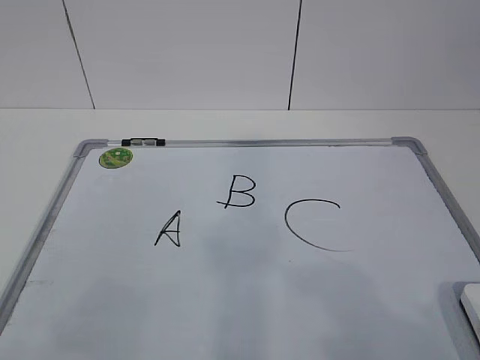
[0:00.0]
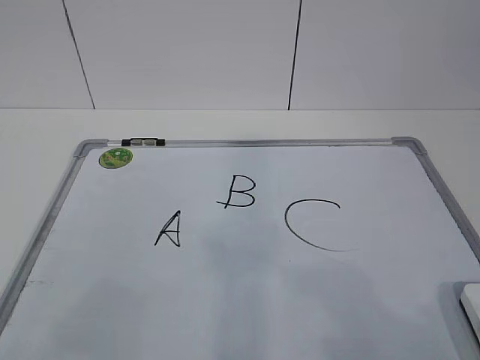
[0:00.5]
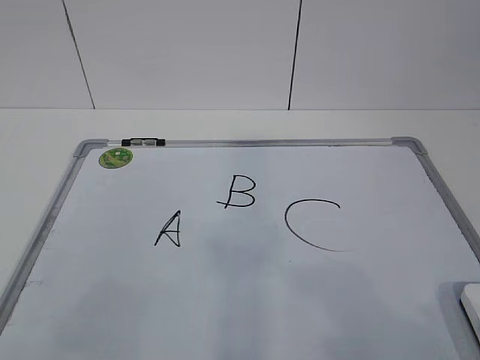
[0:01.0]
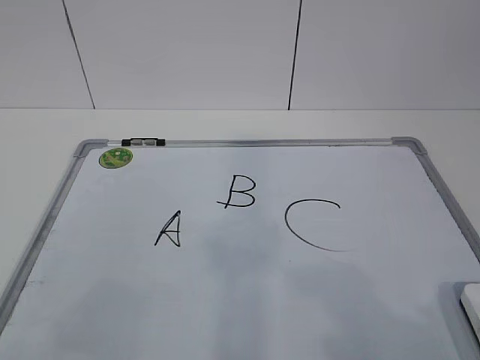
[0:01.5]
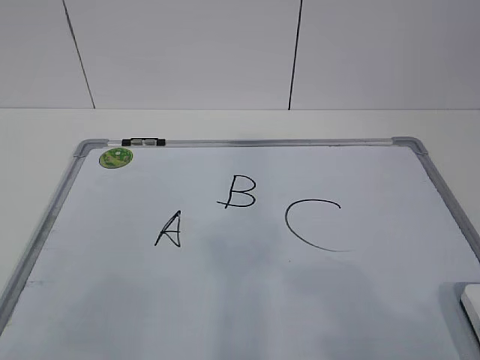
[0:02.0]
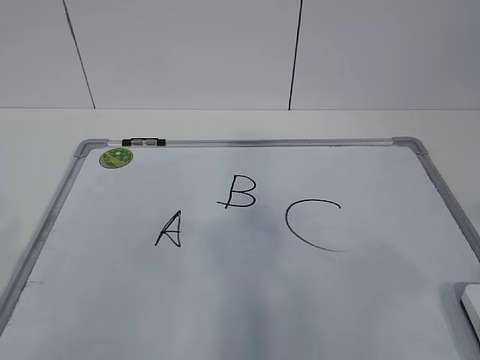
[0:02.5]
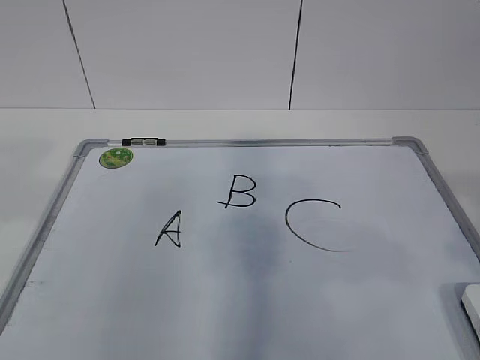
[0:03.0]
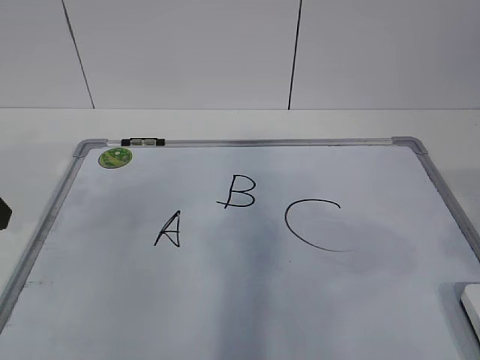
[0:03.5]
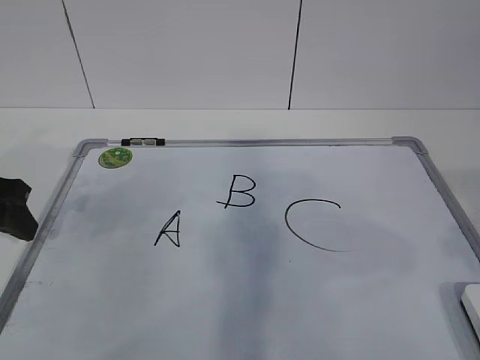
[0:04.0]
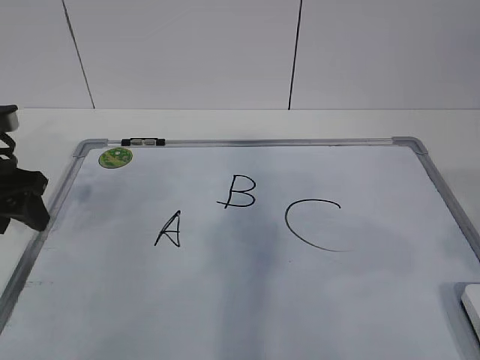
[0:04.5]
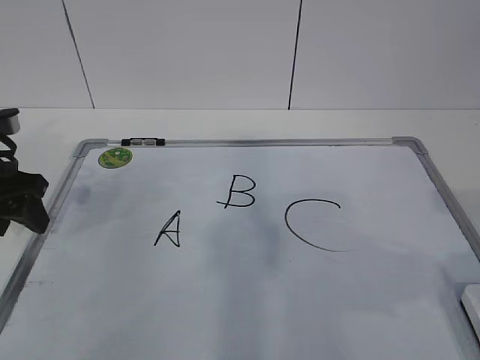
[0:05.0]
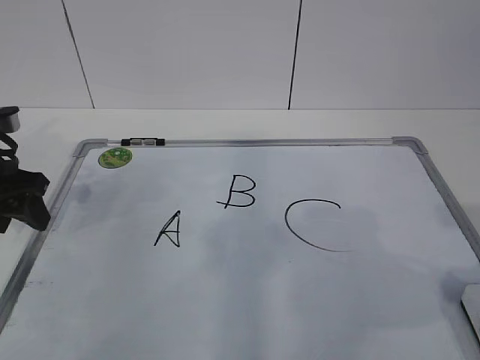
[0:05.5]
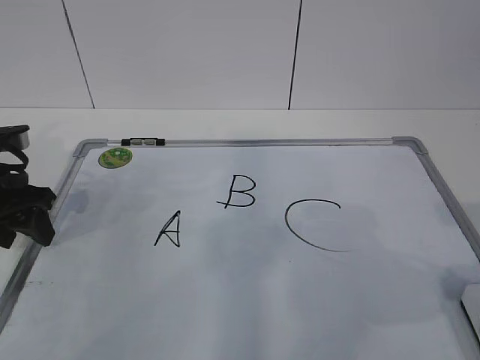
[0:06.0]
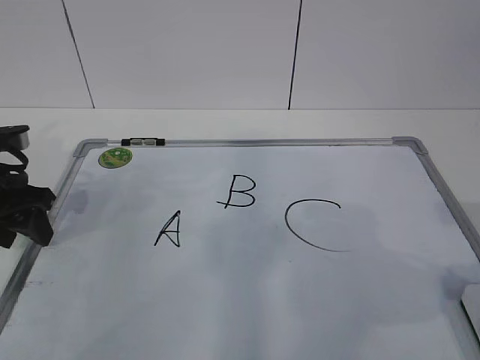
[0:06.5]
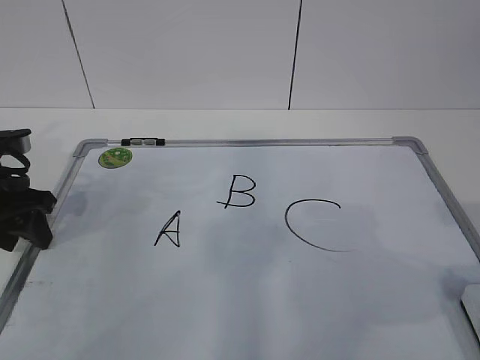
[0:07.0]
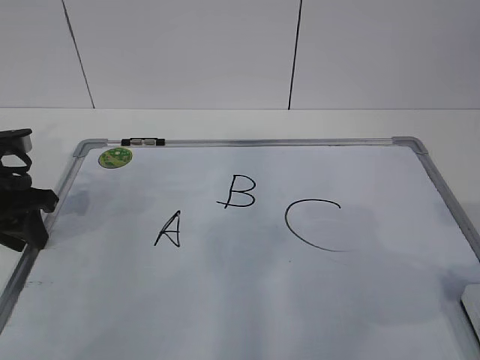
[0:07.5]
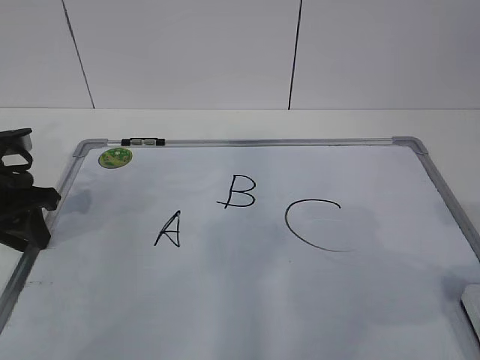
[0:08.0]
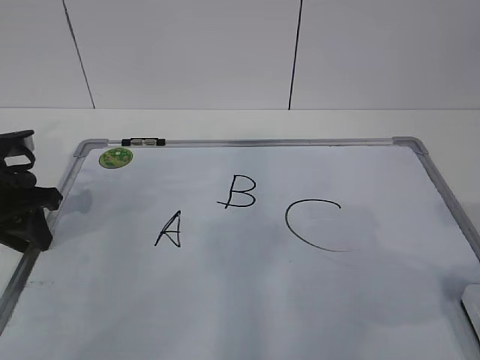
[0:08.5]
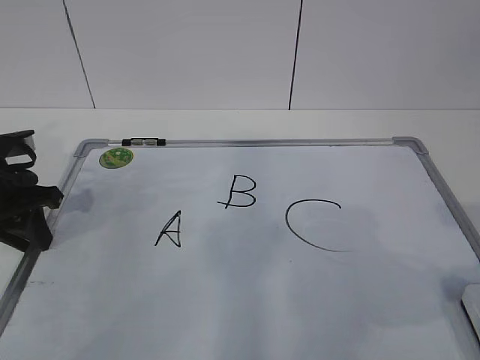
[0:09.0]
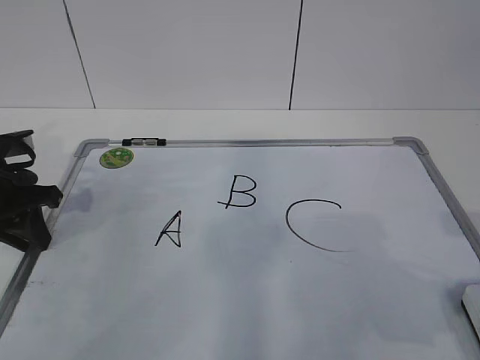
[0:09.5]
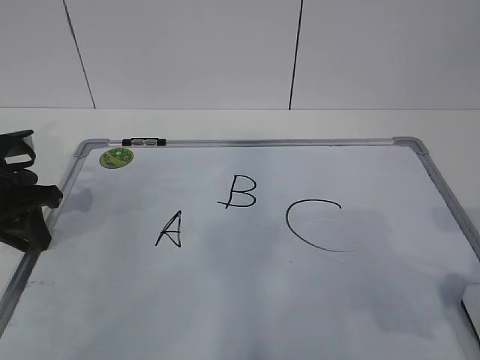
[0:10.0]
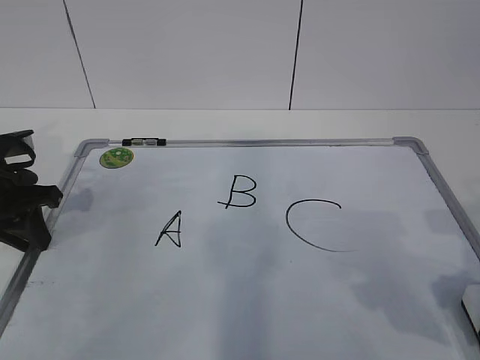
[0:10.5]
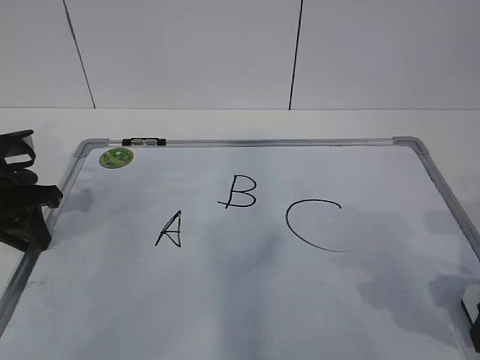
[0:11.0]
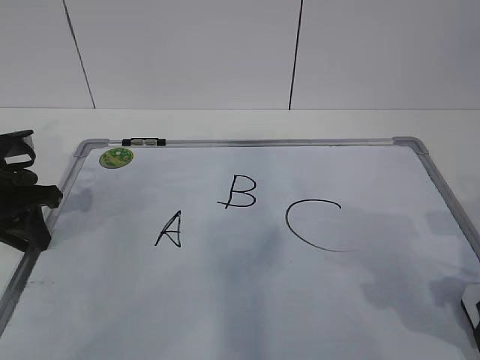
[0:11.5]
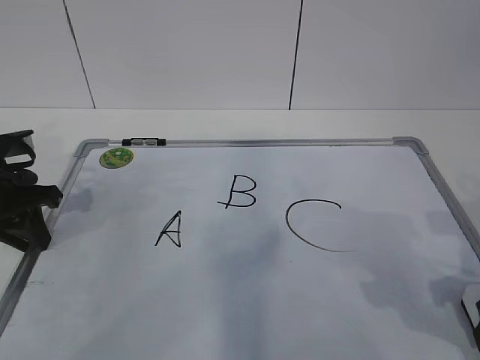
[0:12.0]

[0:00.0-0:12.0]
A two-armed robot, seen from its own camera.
Task of the whole recording: pick up the eraser on the blackboard and erase the letter "B".
Step, 0:00.0 to 0:06.5: Hold the drawing board steady with your left hand.
0:02.0 to 0:04.0: The right gripper is displaced forward and upward by roughly 10 cm; the left gripper goes some 30 cm forward.
0:04.0 to 0:06.0: The left gripper shifts by approximately 5 cm.
0:06.0 to 0:08.0: The left gripper closes its fingers.
0:08.0 to 0:10.0: The grippers move only a little.

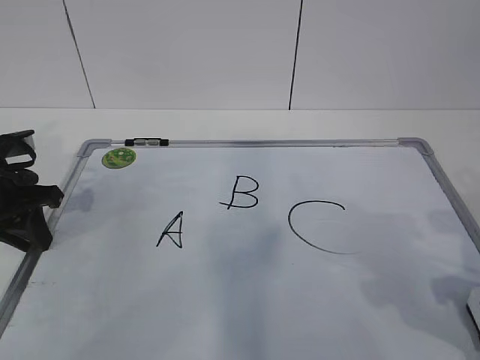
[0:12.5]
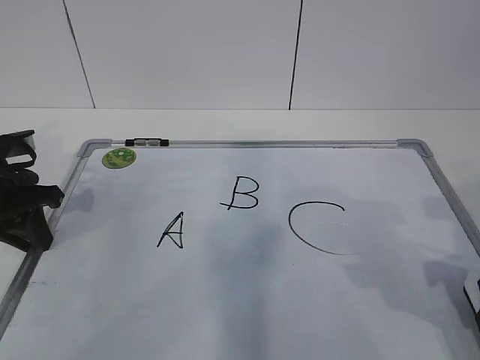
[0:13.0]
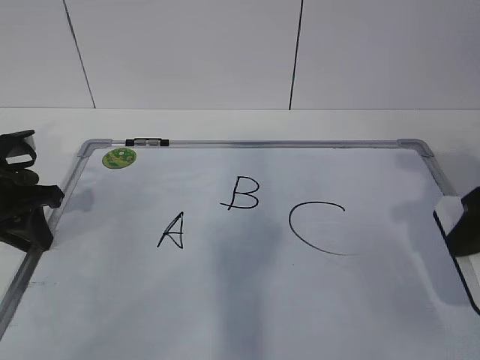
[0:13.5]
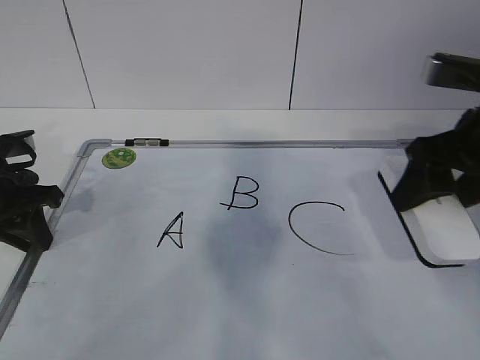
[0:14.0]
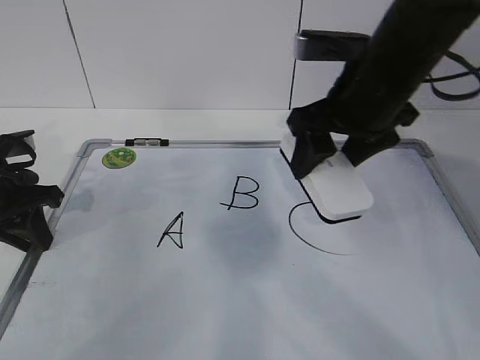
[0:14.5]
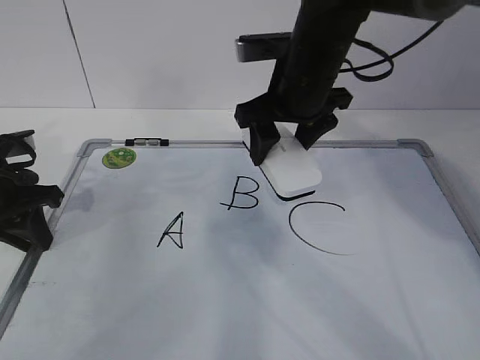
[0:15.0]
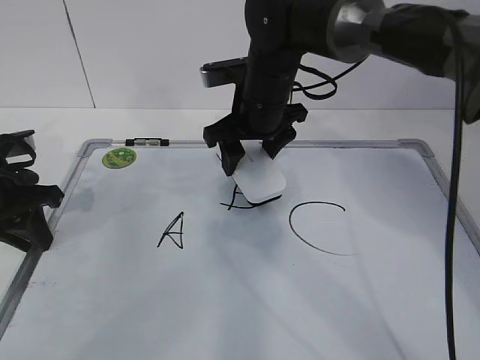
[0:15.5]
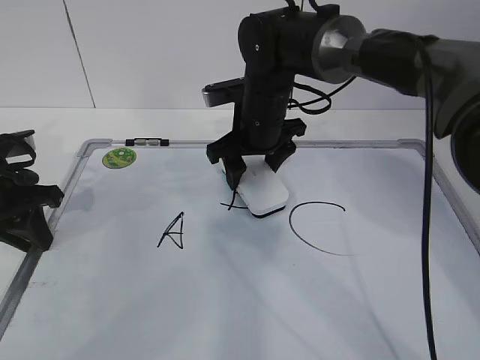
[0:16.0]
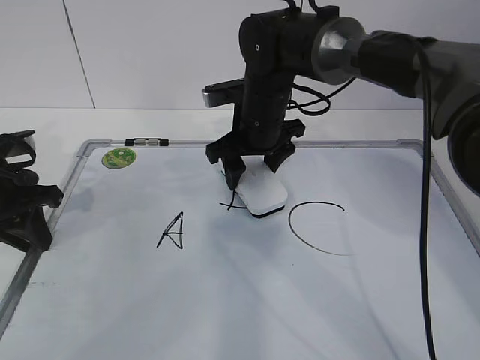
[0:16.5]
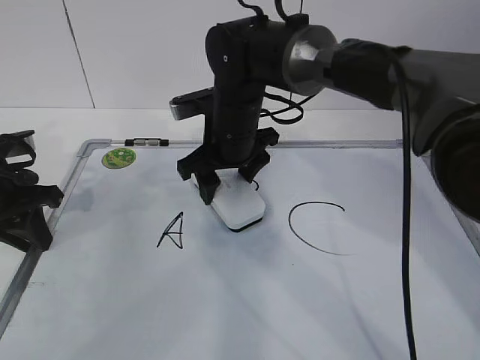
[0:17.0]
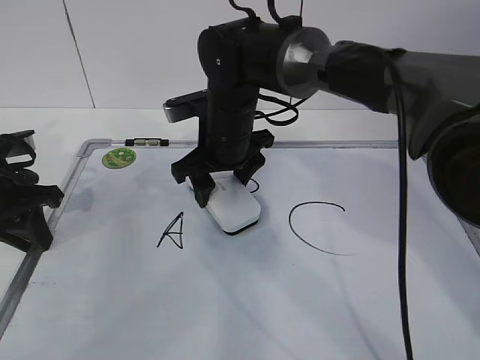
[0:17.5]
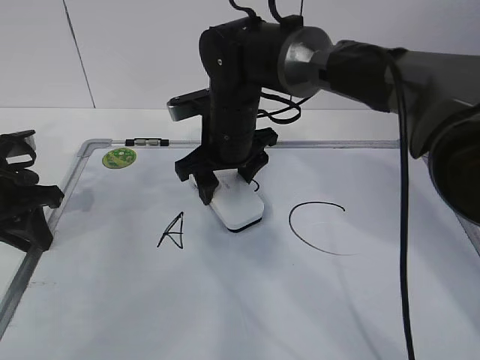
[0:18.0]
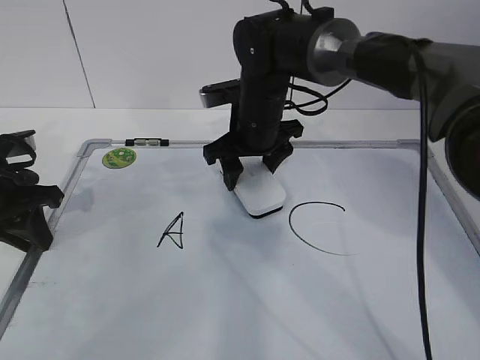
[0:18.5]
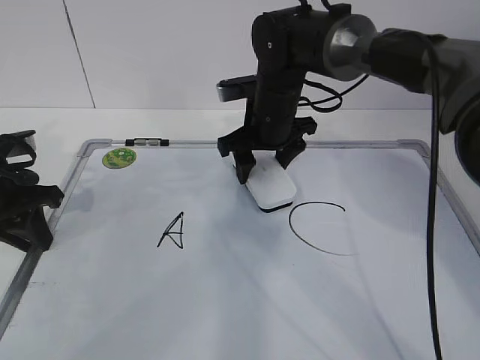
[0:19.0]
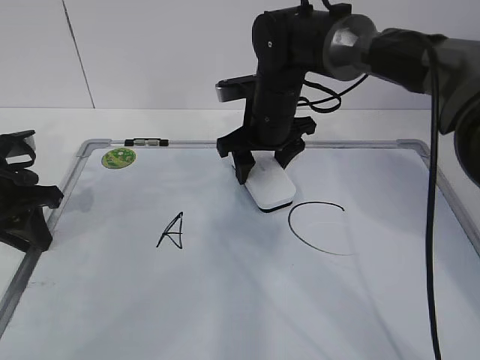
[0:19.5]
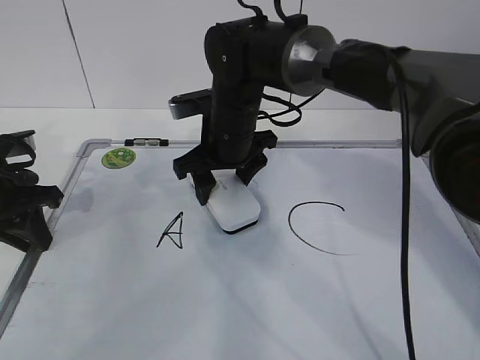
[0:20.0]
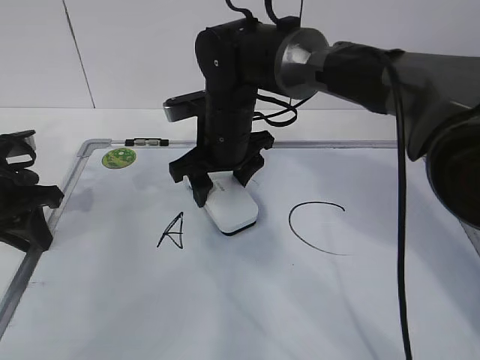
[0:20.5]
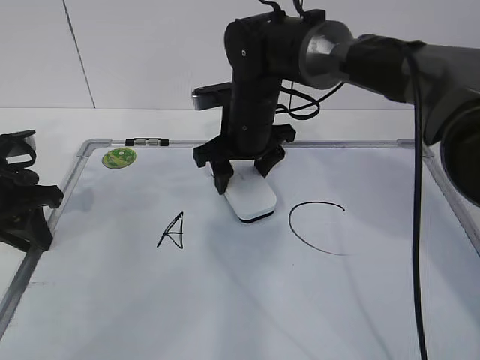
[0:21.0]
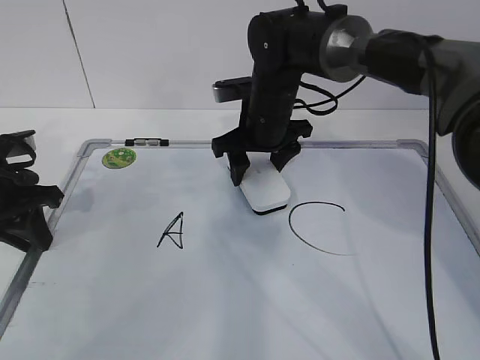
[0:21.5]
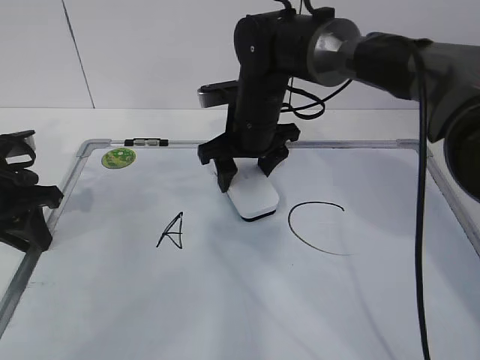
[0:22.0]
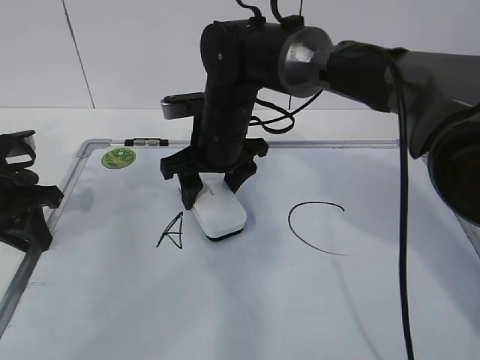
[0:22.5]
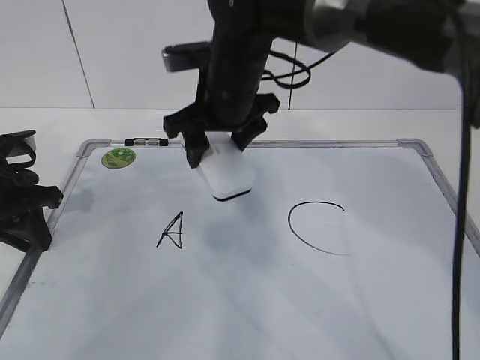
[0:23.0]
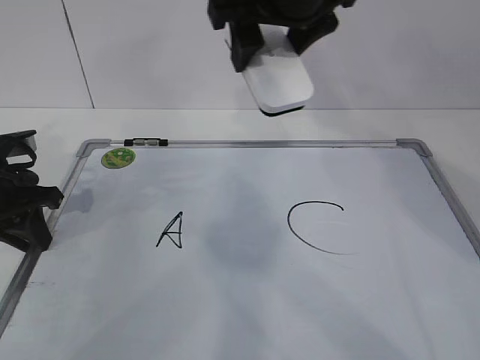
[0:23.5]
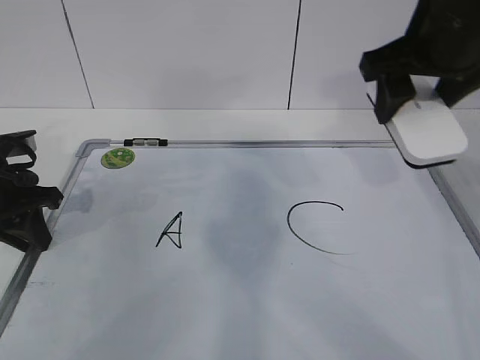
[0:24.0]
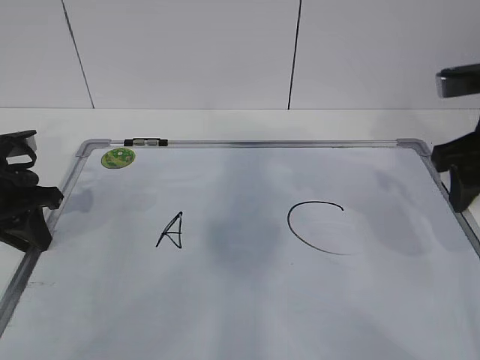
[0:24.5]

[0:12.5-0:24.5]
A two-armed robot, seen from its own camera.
Task of the whole recording: pick up the eraser on the blackboard and erase the letter "B".
Step, 0:12.5 to 0:18.5: Erase the letter B with your right hand.
Step, 0:19.0 to 0:22.0: Put down the eraser with your right hand.
0:12.5 to 0:14.5: The right gripper heads to the left, forward and upward, covering approximately 25 cm.
0:14.5 to 0:16.5: The right gripper is displaced forward, downward and to the left by some 15 cm.
0:16.5 to 0:20.5: The grippers move only a little.
0:22.5 to 0:24.5: The right gripper goes some 25 cm to the right.

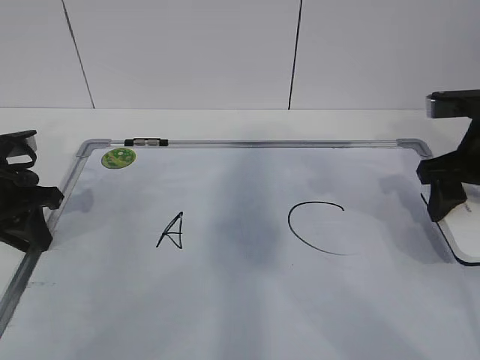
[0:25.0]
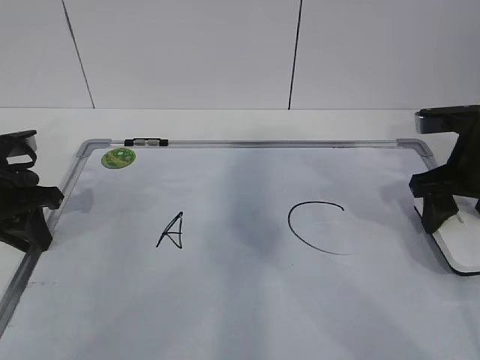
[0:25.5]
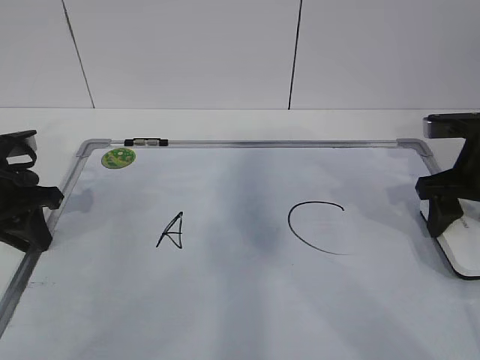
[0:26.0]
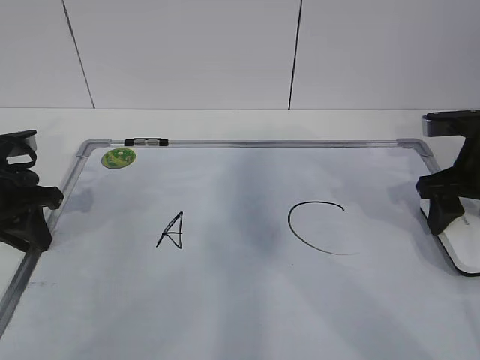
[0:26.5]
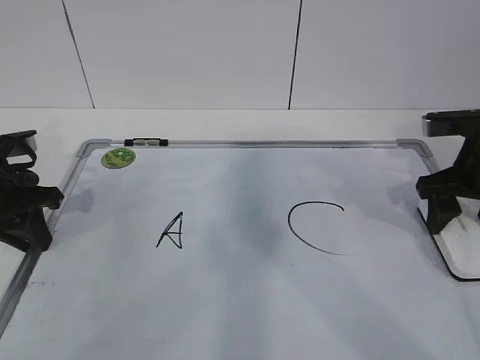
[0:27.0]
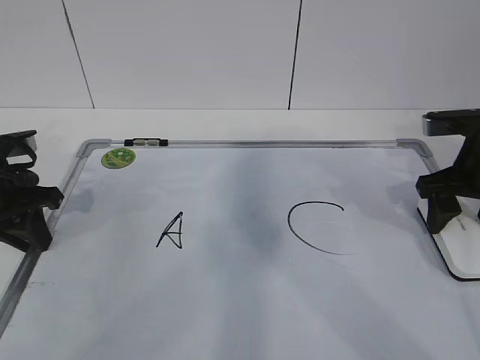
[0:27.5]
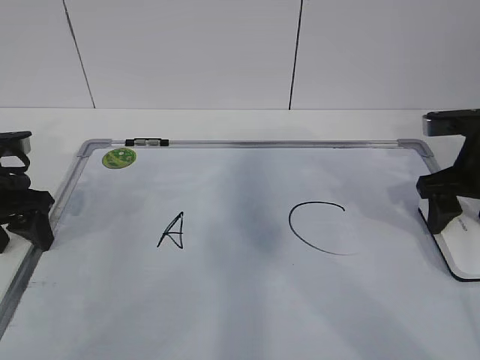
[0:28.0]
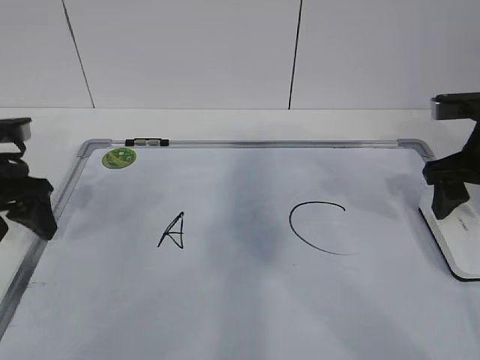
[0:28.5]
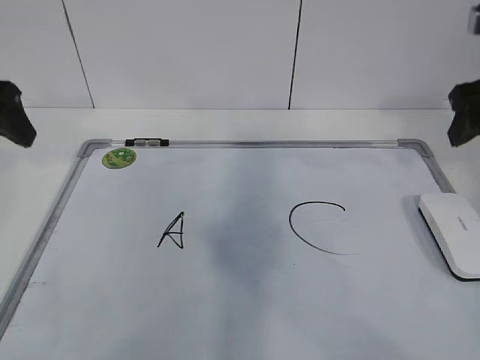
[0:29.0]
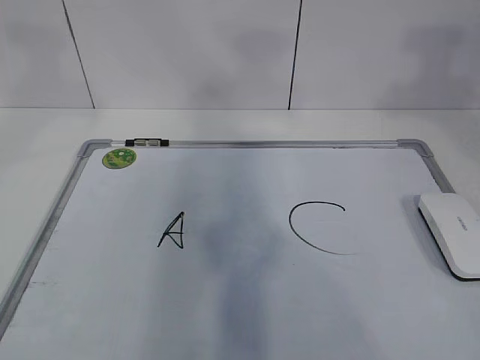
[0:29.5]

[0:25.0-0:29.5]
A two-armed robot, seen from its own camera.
Task of the whole recording: pick up the eraser on the blackboard and erase the letter "B".
0:25.0 to 0:27.0: The right gripper opens.
0:27.0 to 0:29.5: The two grippers go roughly 25 cm upward. The left gripper opens.
